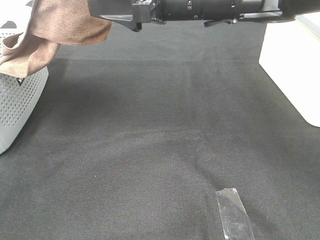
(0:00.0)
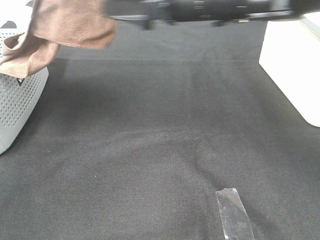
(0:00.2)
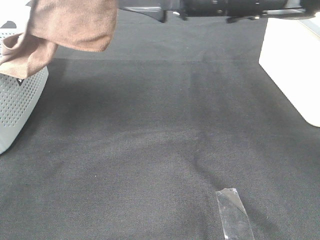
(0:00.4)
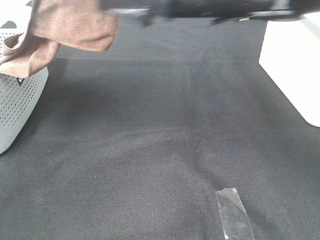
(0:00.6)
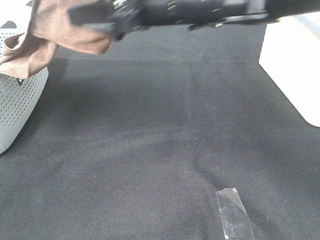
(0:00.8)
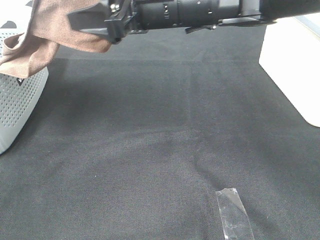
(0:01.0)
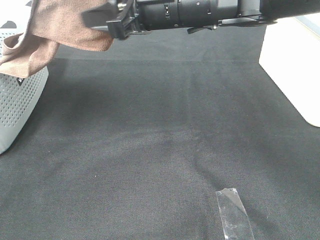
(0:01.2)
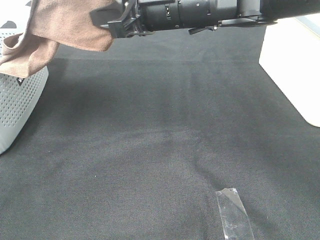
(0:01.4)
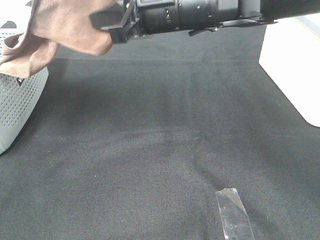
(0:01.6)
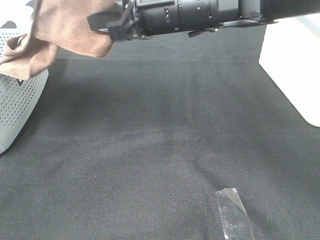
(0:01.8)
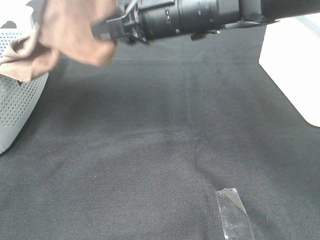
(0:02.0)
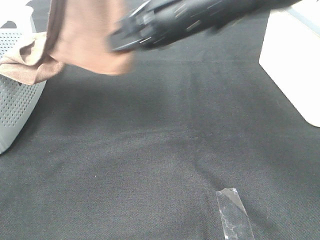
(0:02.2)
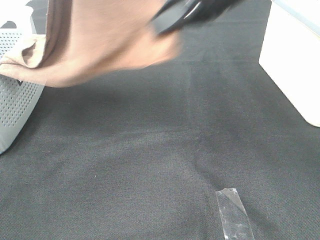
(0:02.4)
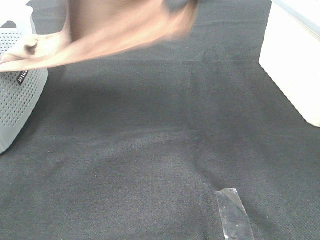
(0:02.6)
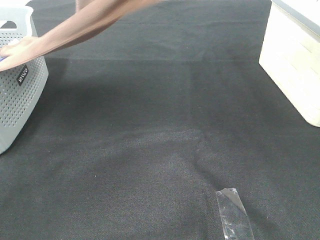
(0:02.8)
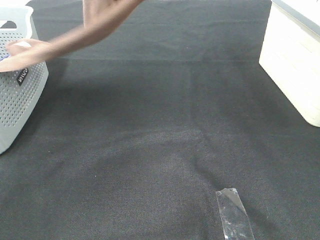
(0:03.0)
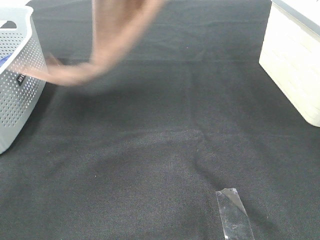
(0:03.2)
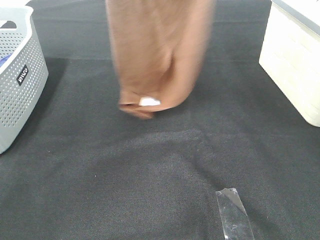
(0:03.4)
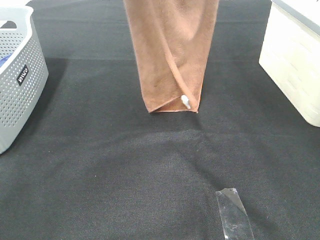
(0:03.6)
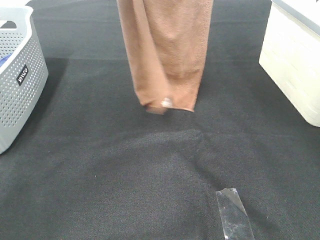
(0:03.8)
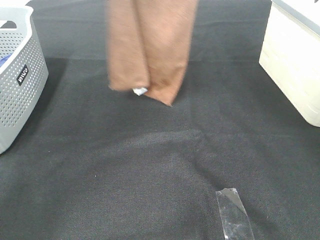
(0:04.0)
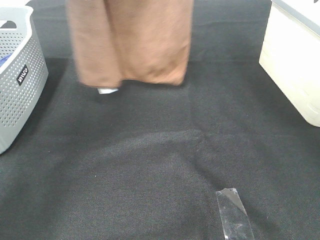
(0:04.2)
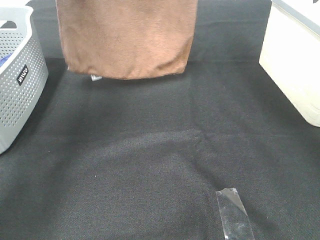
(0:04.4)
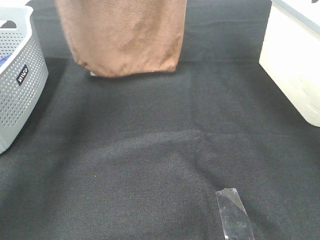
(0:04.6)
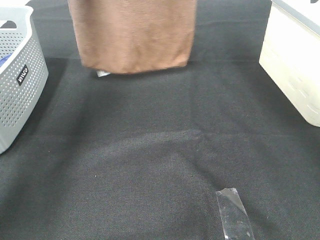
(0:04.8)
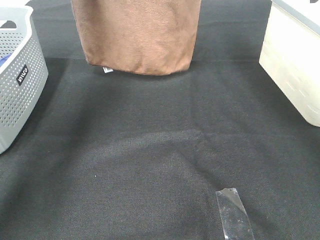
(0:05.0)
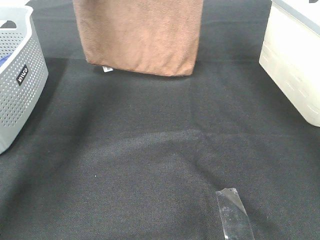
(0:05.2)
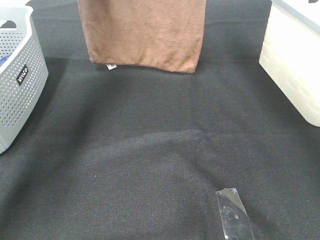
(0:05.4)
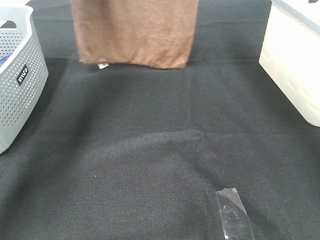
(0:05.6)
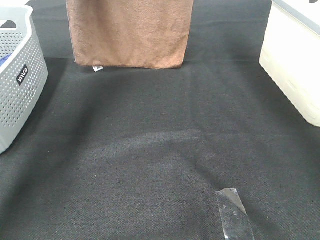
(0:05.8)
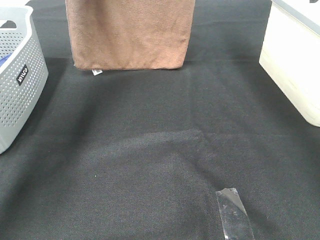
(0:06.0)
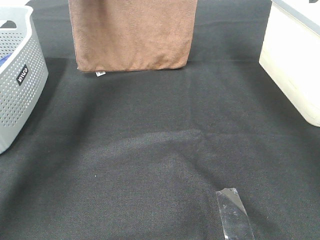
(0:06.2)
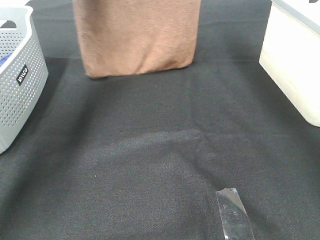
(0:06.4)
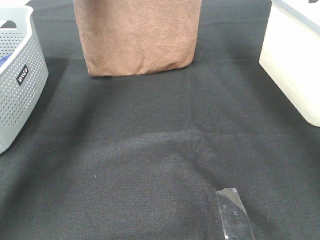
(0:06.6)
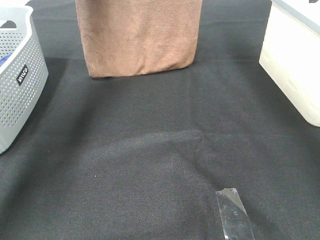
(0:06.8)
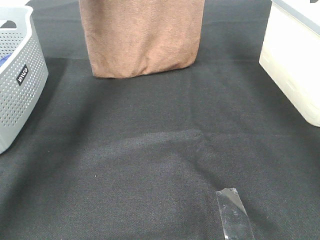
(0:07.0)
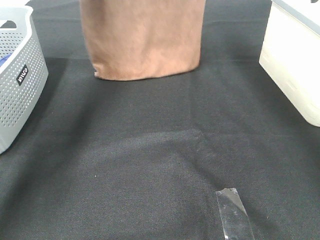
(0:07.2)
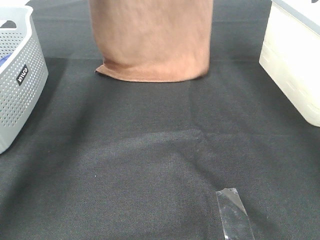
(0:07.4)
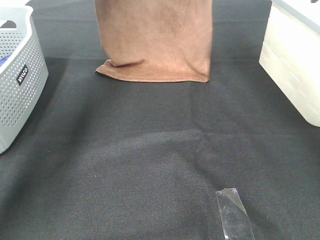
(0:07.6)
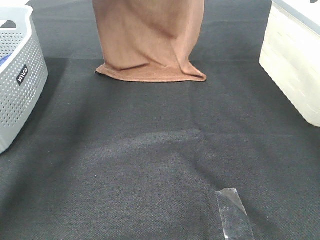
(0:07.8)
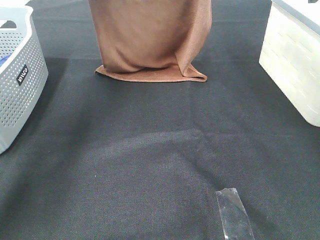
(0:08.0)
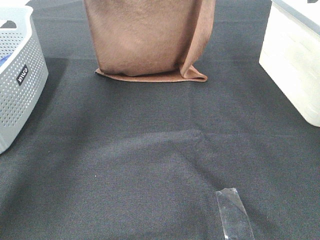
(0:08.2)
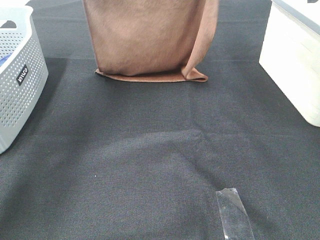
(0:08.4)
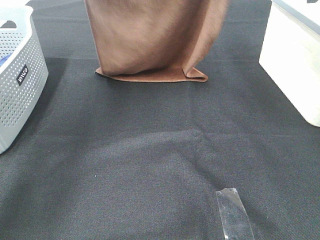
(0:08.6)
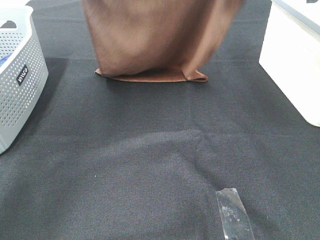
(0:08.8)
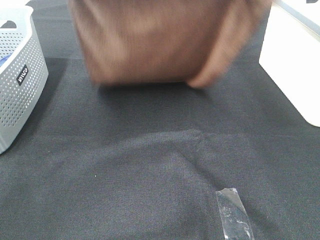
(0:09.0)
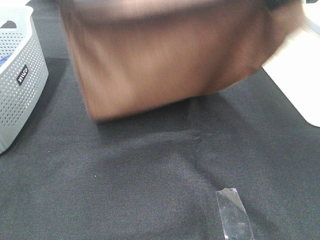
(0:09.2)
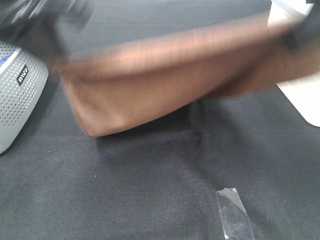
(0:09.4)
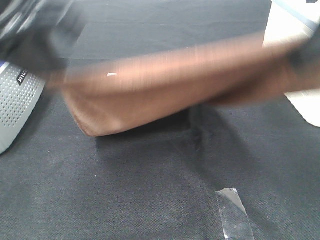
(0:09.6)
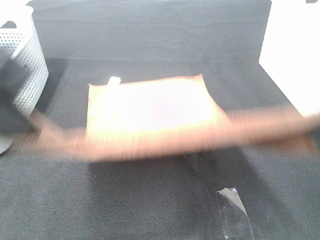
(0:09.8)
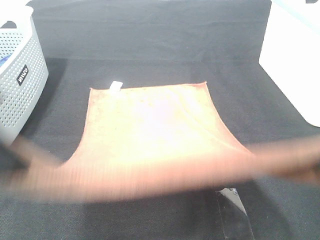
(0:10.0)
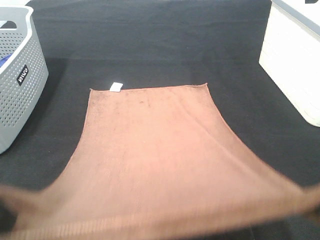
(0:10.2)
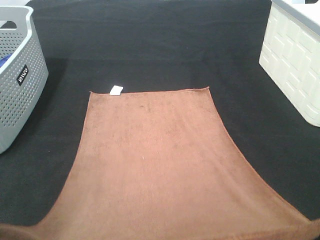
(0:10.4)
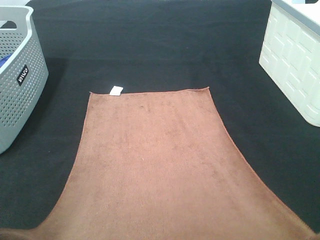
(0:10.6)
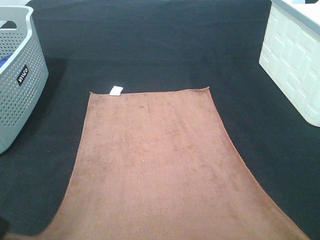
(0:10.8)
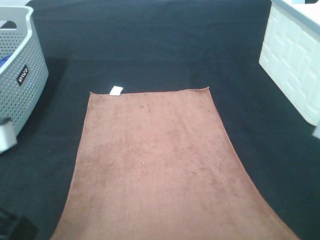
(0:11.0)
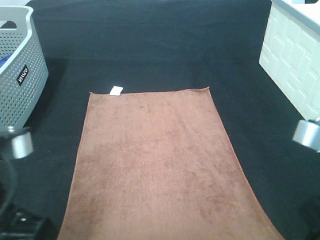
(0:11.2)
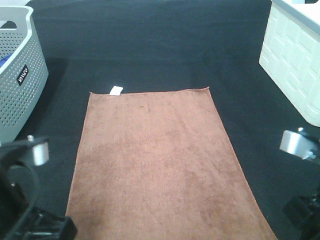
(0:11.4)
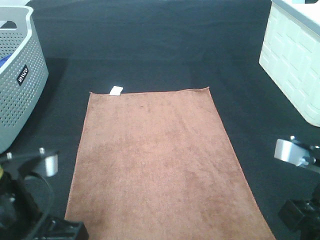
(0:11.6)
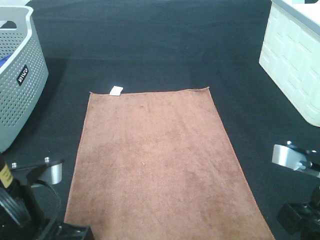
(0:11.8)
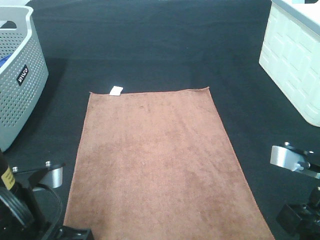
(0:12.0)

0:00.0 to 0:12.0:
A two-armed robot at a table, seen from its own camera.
Task of the whole recording: Remove the towel and place it.
Step, 0:01.8 to 0:08.8: Left hand: spread the brown towel flat on the table.
Step, 0:01.8 to 0:08.8: Right hand: spread the brown towel flat on the table.
0:00.0 to 0:01.6: The right gripper closes up.
0:01.6 to 0:03.0: The right gripper heads upward and to the right, covering some 25 cm.
0:03.0 to 0:04.4: The two grippers go approximately 10 cm forward.
0:04.4 to 0:06.0: Both grippers travel together forward and downward, roughly 10 cm.
0:07.6 to 0:09.0: The two grippers go some 20 cm backward.
0:09.0 to 0:10.4: Both grippers travel together backward and downward, roughly 25 cm.
0:10.4 to 0:12.0: The right gripper moves downward and forward, roughly 10 cm. The left gripper goes roughly 10 cm downward.

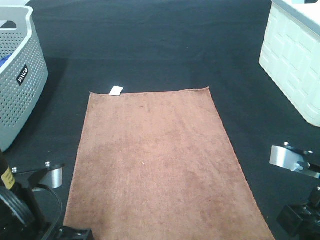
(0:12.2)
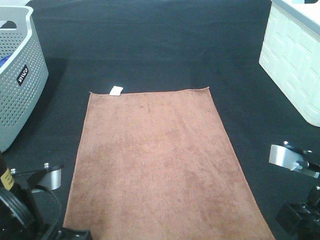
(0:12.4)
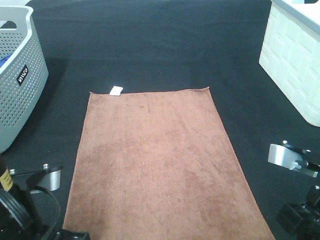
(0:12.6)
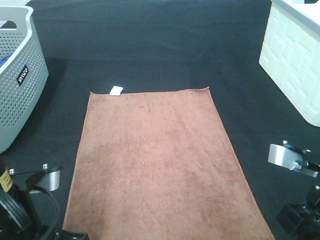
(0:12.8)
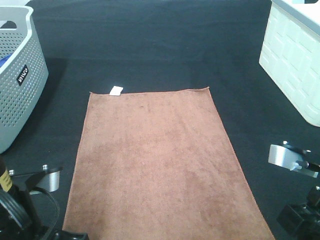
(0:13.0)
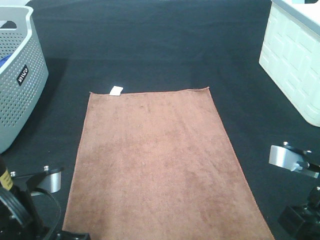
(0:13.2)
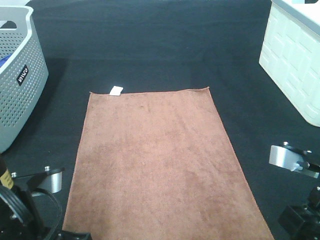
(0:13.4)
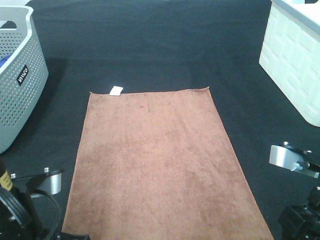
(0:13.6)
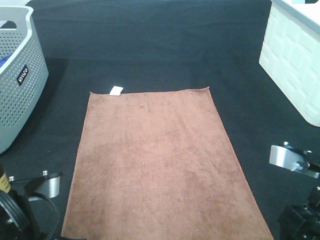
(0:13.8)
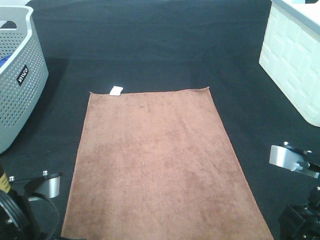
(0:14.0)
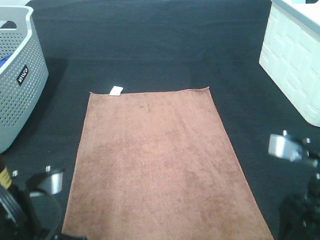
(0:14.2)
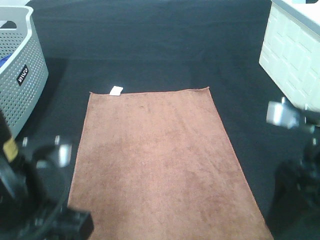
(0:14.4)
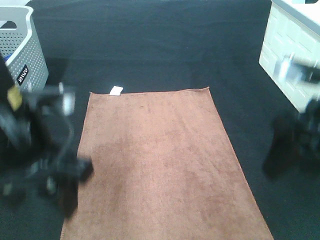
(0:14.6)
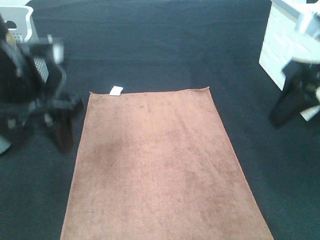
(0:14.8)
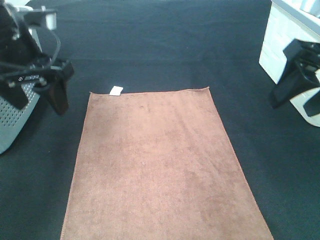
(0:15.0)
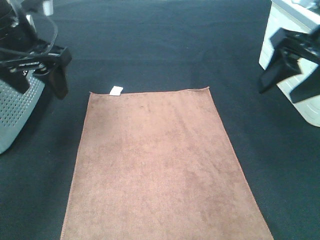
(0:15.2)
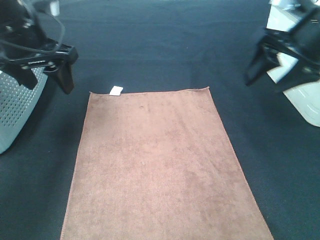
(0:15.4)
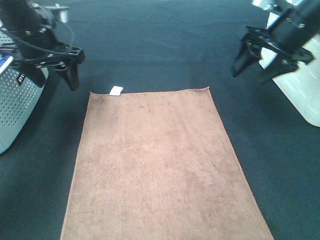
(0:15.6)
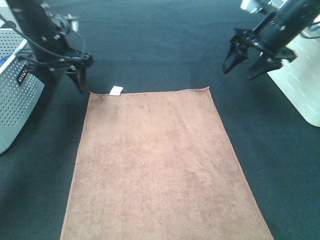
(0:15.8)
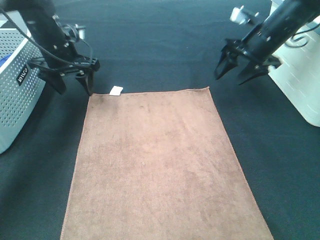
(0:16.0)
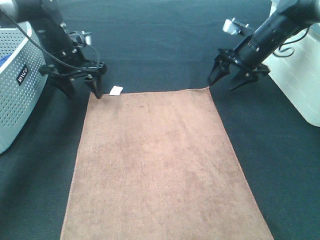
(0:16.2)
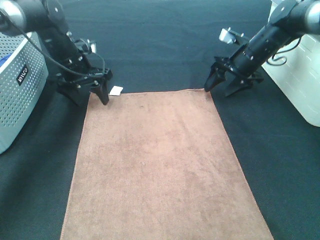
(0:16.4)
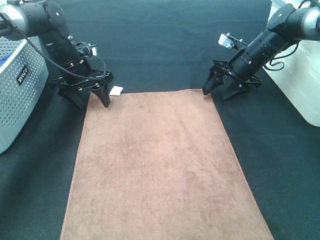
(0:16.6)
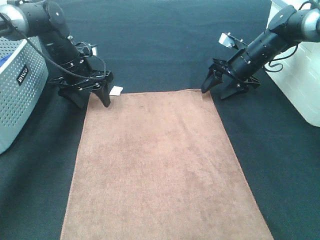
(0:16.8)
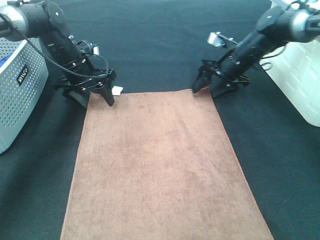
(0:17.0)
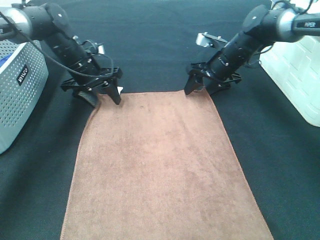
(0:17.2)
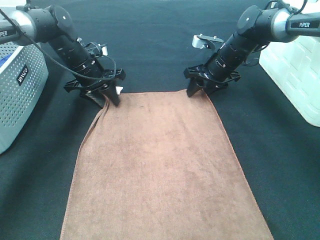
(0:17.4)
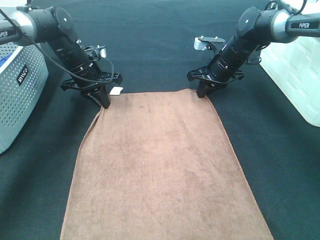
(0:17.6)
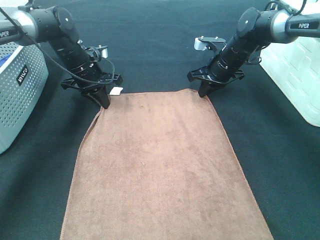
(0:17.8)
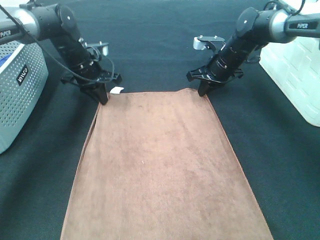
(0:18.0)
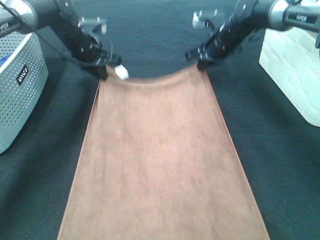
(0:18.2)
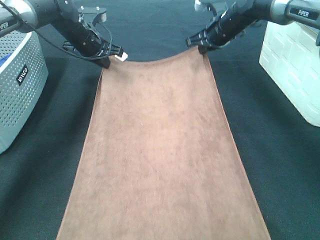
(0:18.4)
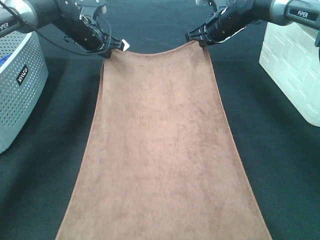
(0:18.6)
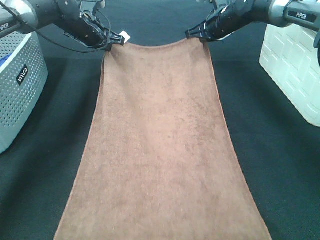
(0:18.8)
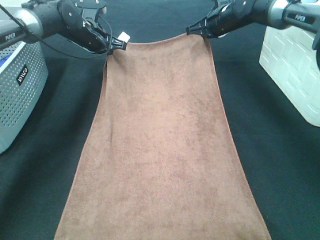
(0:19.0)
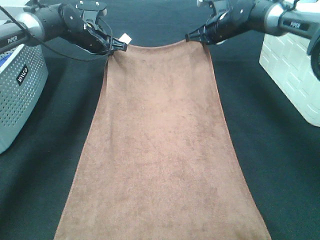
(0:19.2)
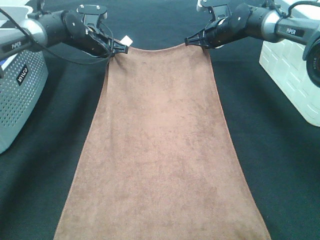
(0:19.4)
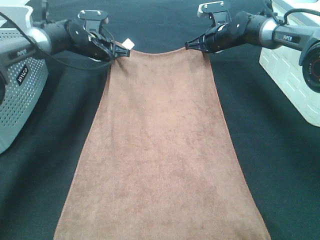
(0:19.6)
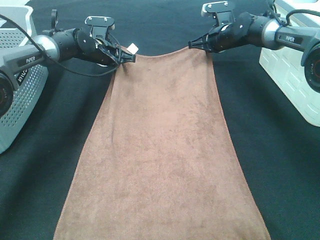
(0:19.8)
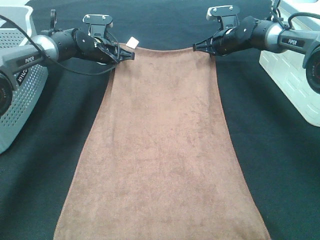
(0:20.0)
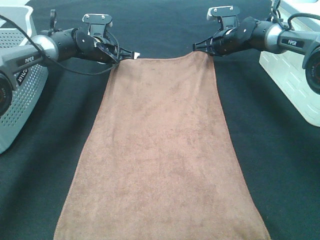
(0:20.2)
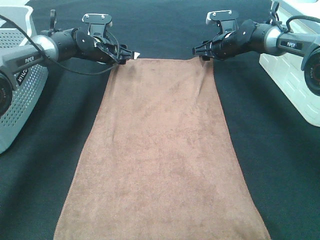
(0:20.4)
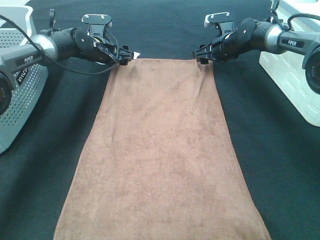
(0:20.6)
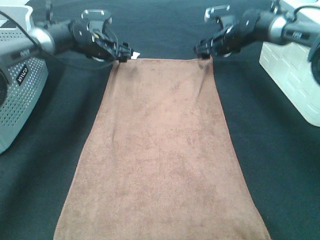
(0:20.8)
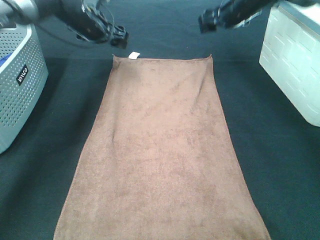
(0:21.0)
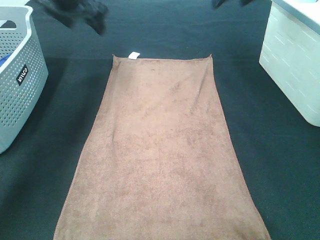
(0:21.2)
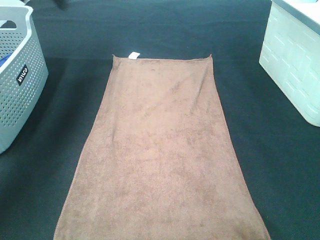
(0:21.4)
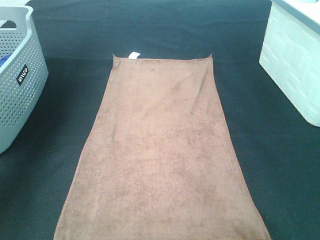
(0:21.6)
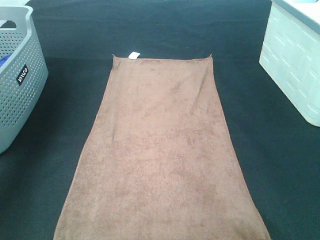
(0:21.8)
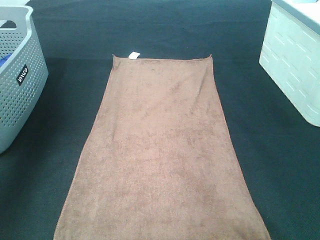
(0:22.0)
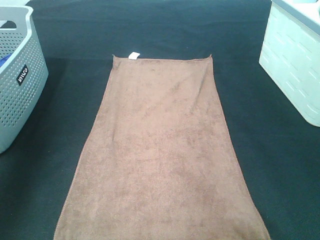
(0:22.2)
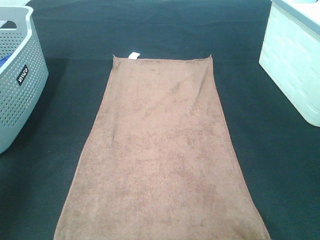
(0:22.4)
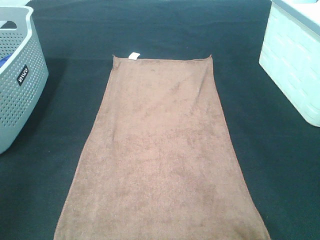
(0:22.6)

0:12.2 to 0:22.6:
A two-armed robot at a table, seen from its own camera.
Task of the whole recording: Remove the towel and place it.
Step, 0:12.2 to 0:14.4: Left hand:adjust the brown towel.
Step, 0:12.2 to 0:14.4: Right hand:adjust the brown towel.
0:12.2 to 0:13.6: The left gripper opens its fingers.
0:13.6 to 0:15.2: The two grippers go approximately 20 cm forward and upward.
0:15.2 to 0:16.6: Both grippers move forward and downward, approximately 25 cm.
0:16.6 to 0:18.2: The right gripper travels to the left by some 5 cm, and closes its fingers. The left gripper moves roughly 5 cm, and closes up.
0:18.2 to 0:19.6: The left gripper shifts by approximately 5 cm.
0:19.6 to 0:21.2: Both grippers move upward and backward, approximately 20 cm. The left gripper opens its fingers. Meanwhile the right gripper opens up.
0:21.2 to 0:22.6: The grippers both shift backward by some 40 cm.
